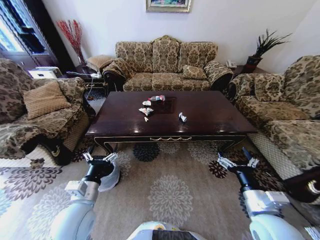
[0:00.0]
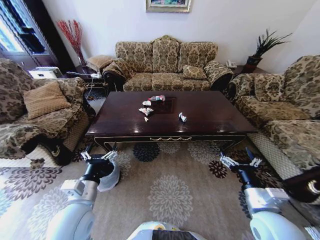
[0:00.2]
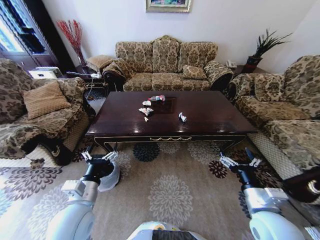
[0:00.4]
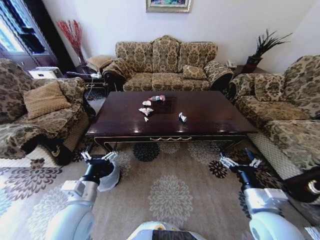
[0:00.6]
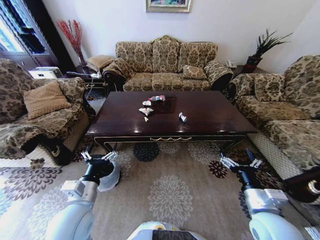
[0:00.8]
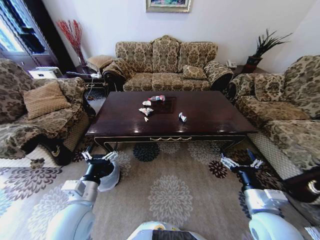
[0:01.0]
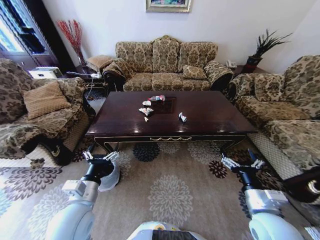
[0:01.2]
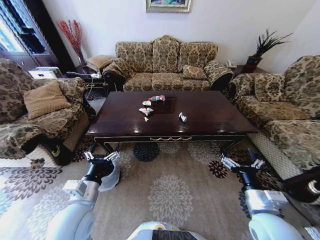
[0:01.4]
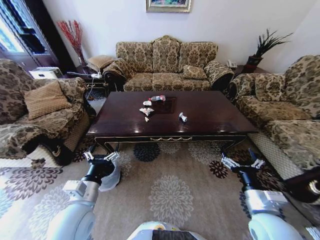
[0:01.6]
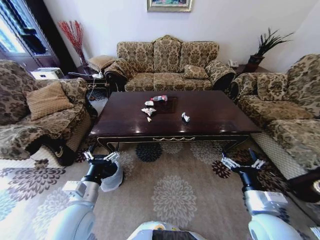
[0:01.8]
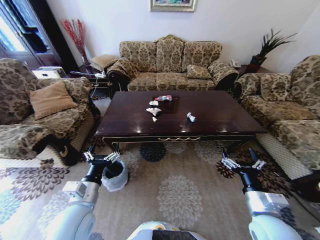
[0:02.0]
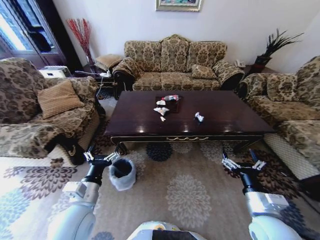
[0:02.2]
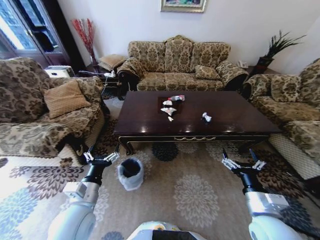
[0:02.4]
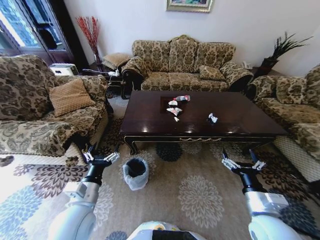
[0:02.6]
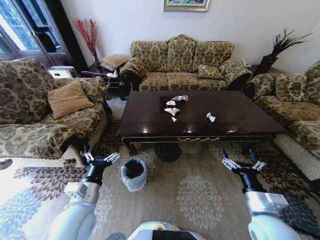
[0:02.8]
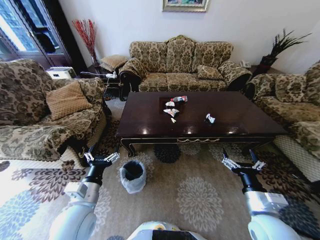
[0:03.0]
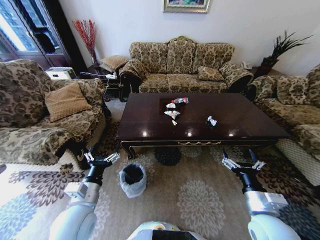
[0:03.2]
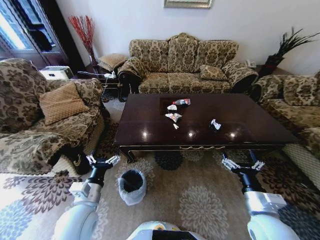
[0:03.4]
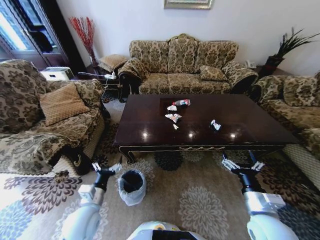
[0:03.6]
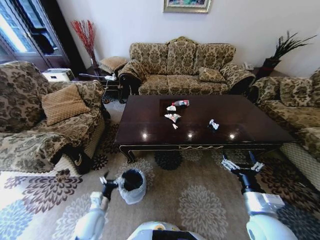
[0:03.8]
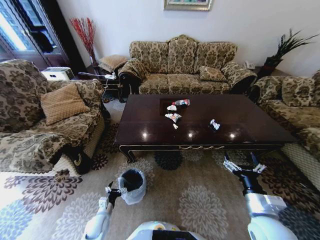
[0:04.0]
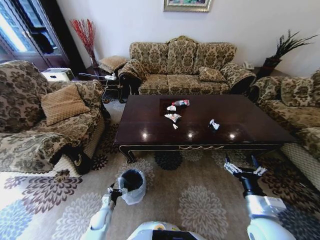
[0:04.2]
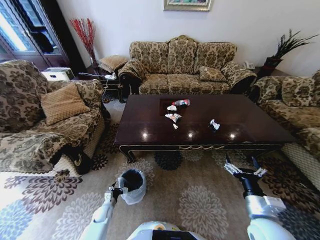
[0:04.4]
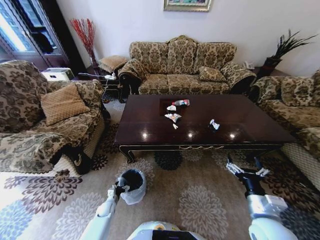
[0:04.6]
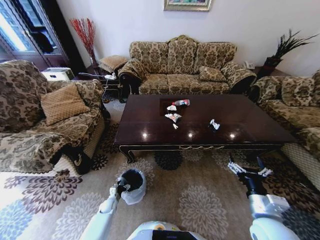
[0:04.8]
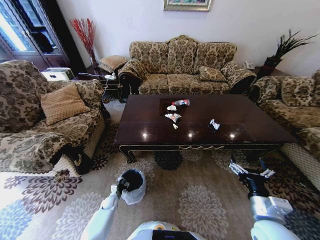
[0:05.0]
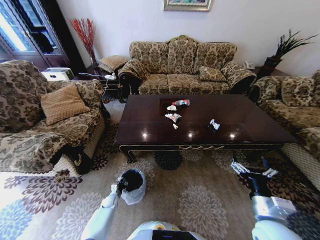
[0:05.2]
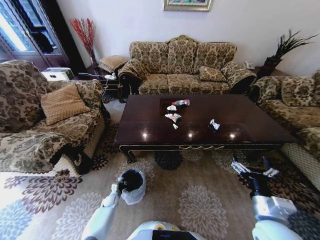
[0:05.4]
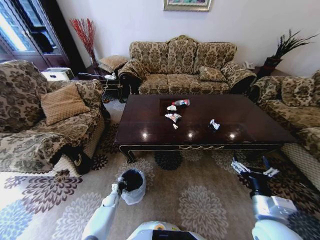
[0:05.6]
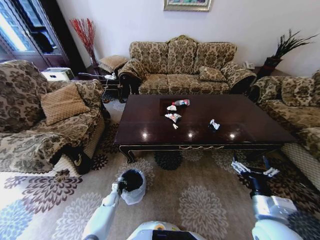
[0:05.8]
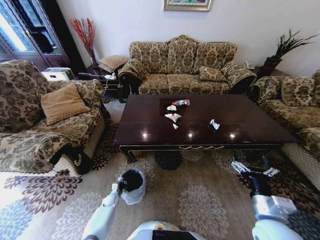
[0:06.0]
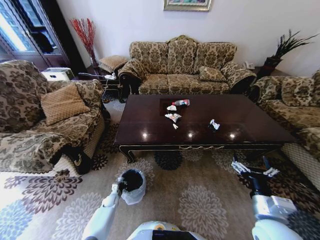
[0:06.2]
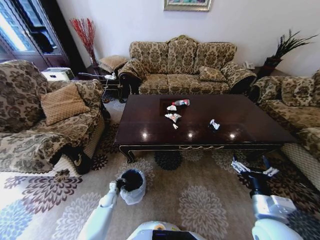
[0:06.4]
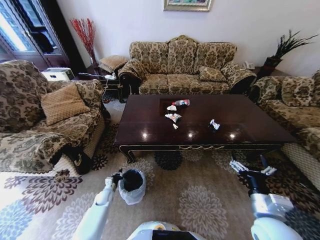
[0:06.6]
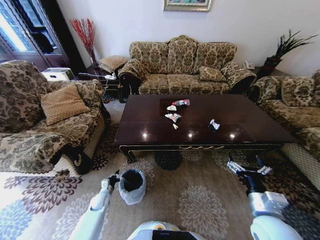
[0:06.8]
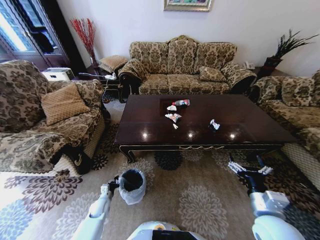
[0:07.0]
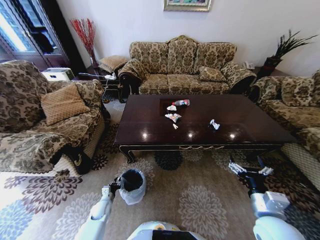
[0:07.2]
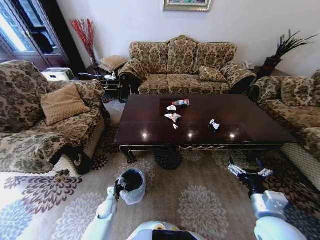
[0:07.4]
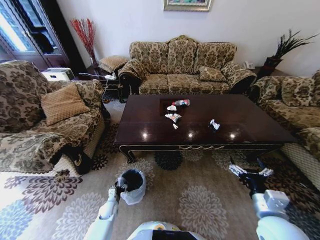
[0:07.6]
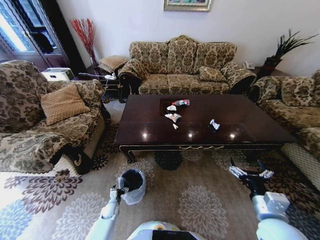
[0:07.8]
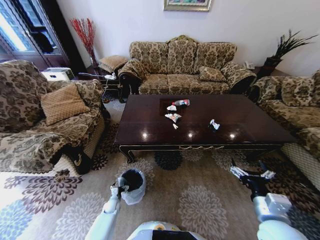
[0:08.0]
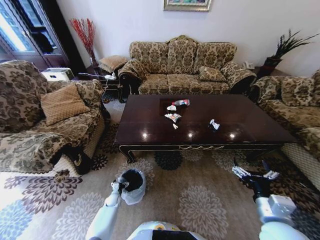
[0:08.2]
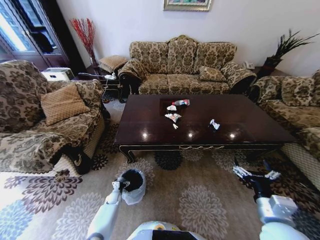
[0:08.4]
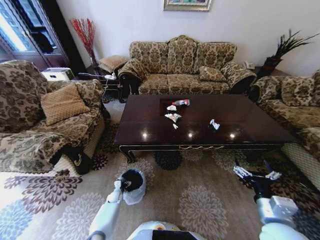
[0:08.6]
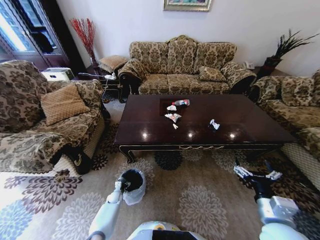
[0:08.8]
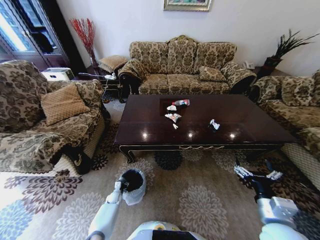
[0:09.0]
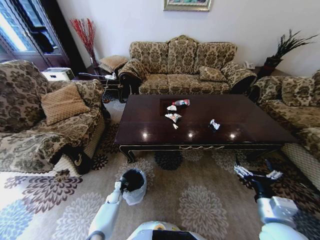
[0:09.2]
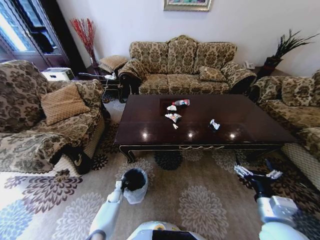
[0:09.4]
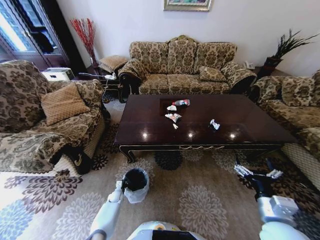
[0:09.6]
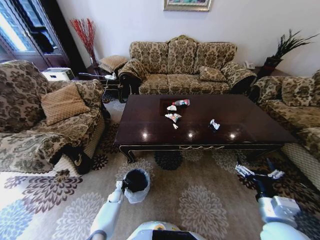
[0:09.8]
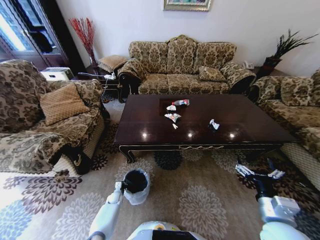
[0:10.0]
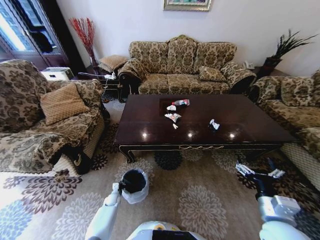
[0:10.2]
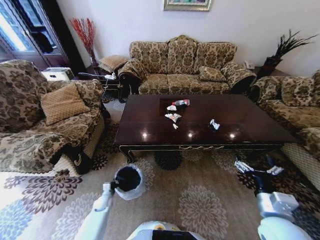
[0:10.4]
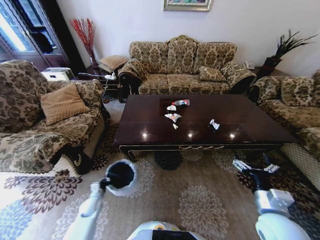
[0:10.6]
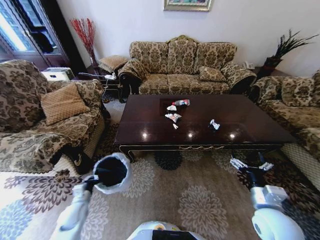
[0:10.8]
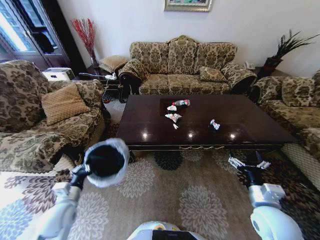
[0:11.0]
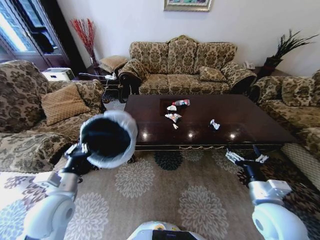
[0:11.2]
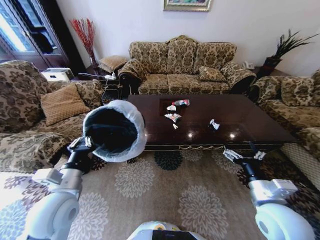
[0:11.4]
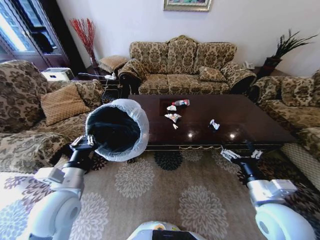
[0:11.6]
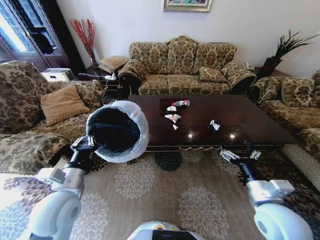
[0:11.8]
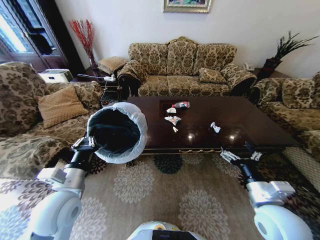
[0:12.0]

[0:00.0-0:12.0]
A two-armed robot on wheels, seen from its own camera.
Task of the whole recording: Move to the front of the table and place the trash on the table into the trash bin.
0:03.0 to 0:04.4: The left gripper heads downward, covering approximately 35 cm.
0:04.4 to 0:06.0: The left gripper travels forward by some 5 cm, and closes.
0:06.0 to 0:07.6: The left gripper is displaced upward and backward by about 10 cm, and opens its fingers.
0:07.6 to 0:09.0: The left gripper heads forward and downward, covering some 10 cm.
0:09.0 to 0:10.4: The left gripper shifts by about 5 cm, and closes.
0:10.4 to 0:12.0: The left gripper shifts about 40 cm upward.

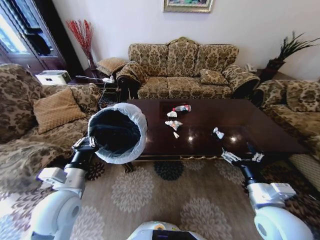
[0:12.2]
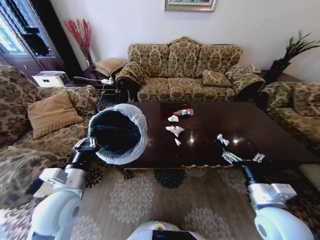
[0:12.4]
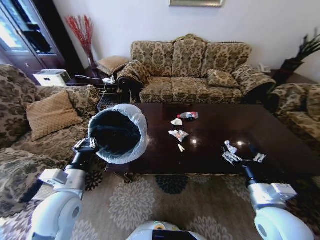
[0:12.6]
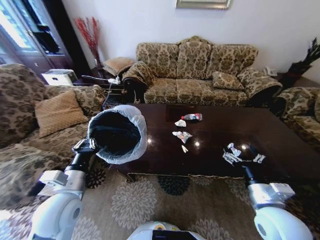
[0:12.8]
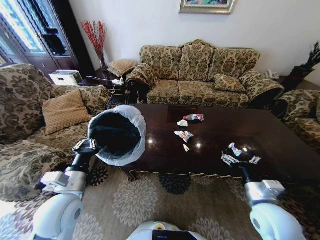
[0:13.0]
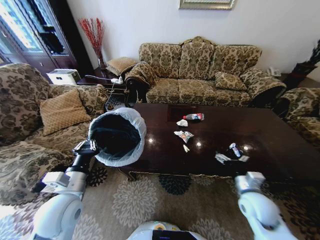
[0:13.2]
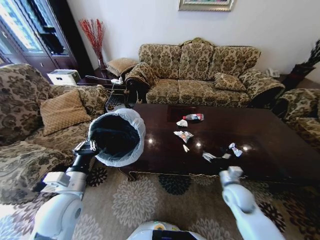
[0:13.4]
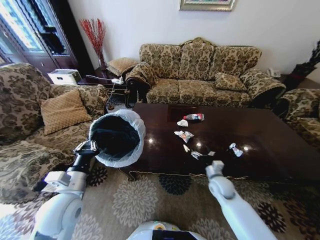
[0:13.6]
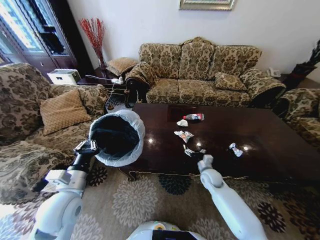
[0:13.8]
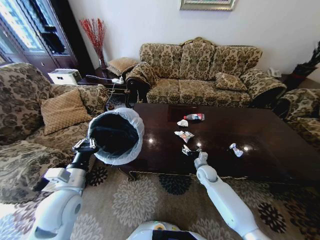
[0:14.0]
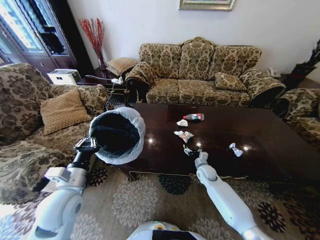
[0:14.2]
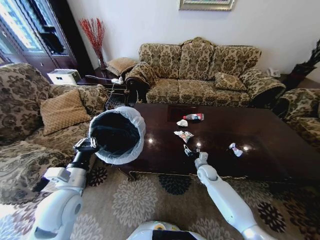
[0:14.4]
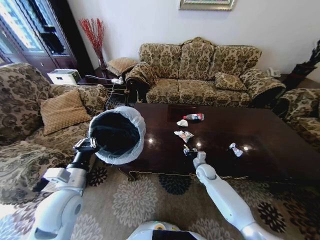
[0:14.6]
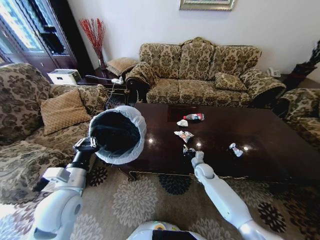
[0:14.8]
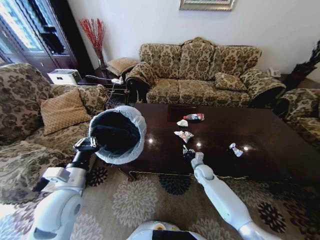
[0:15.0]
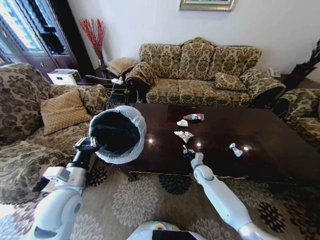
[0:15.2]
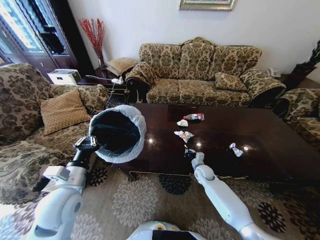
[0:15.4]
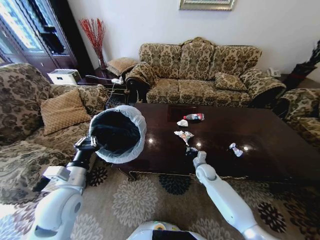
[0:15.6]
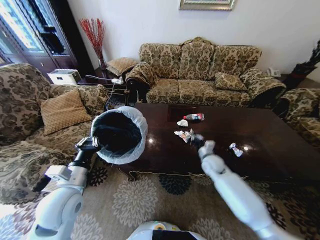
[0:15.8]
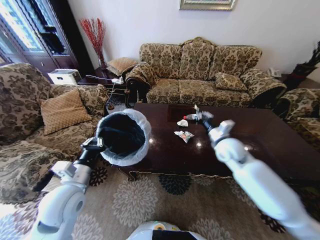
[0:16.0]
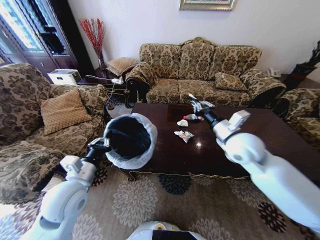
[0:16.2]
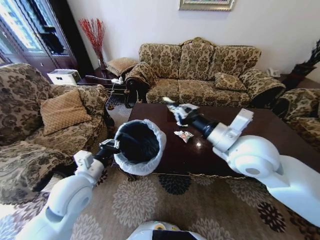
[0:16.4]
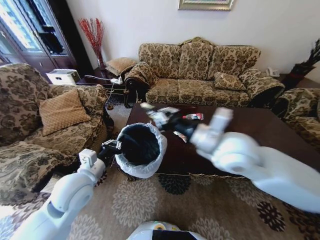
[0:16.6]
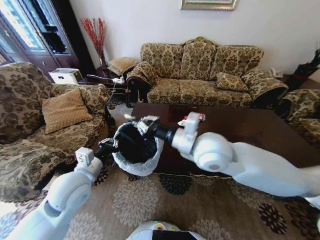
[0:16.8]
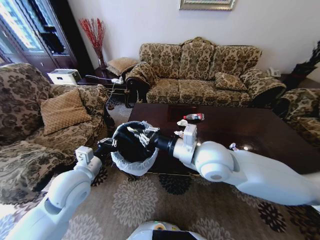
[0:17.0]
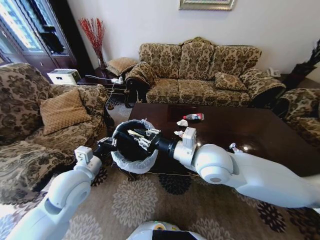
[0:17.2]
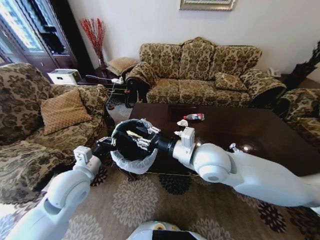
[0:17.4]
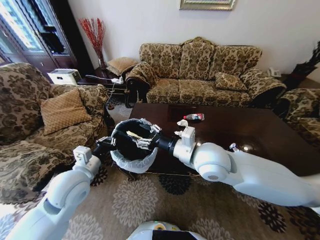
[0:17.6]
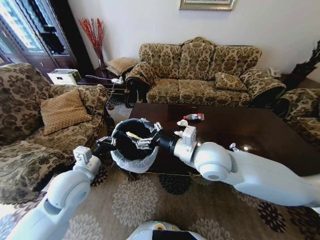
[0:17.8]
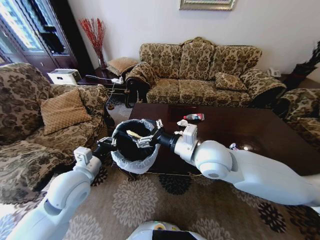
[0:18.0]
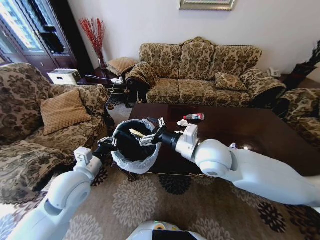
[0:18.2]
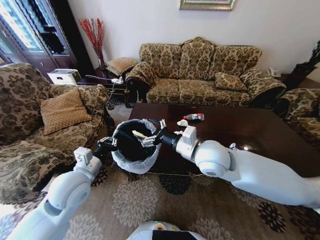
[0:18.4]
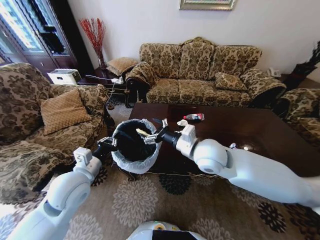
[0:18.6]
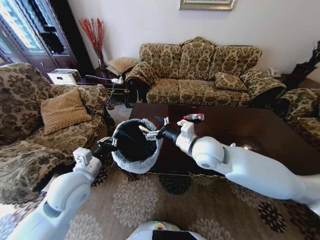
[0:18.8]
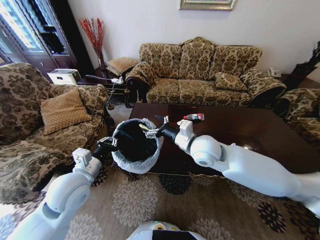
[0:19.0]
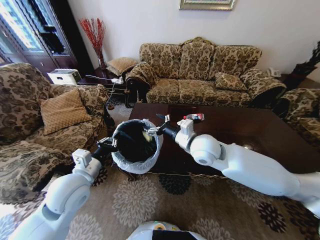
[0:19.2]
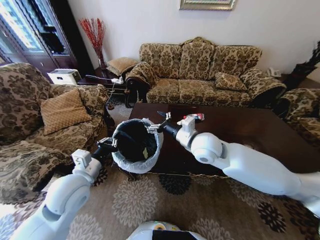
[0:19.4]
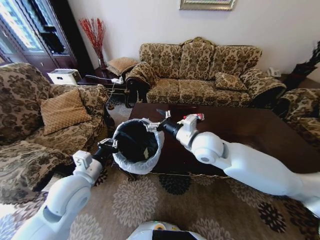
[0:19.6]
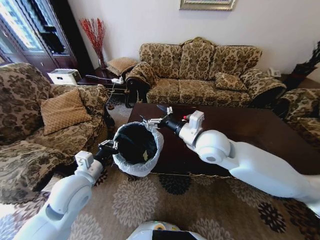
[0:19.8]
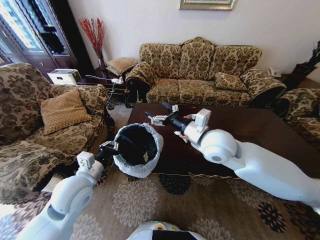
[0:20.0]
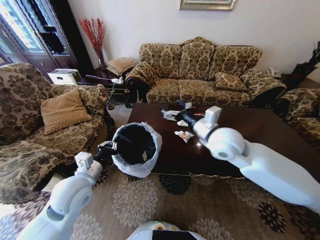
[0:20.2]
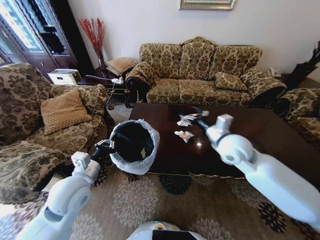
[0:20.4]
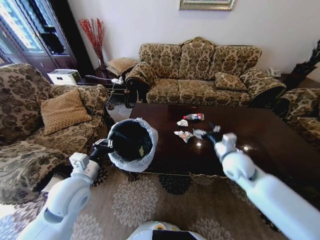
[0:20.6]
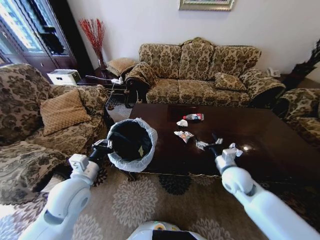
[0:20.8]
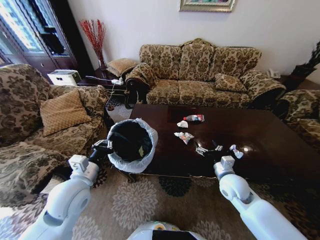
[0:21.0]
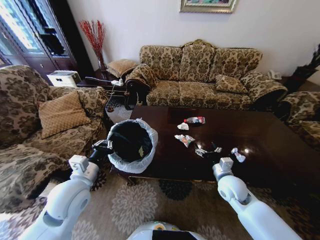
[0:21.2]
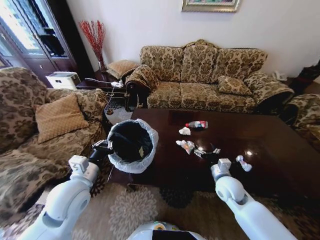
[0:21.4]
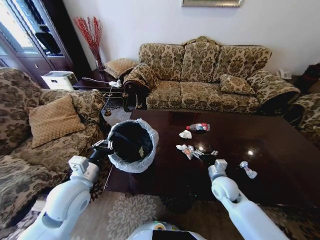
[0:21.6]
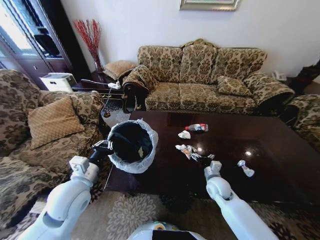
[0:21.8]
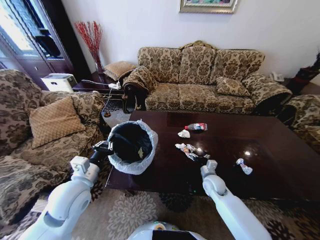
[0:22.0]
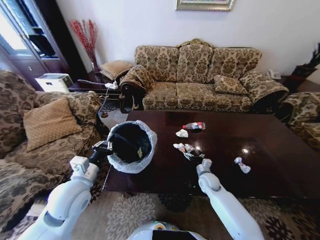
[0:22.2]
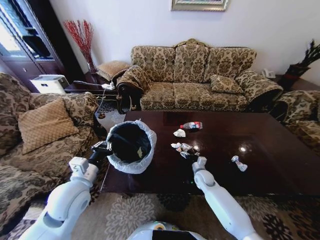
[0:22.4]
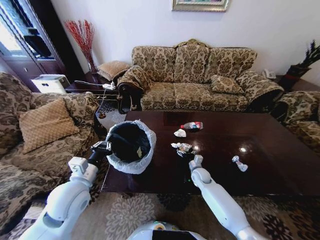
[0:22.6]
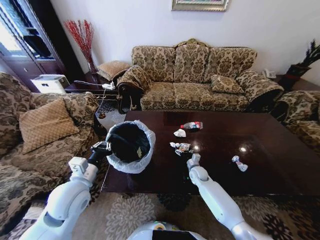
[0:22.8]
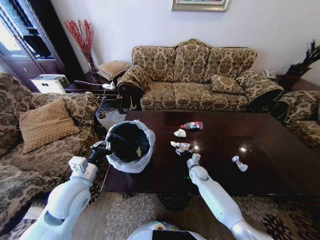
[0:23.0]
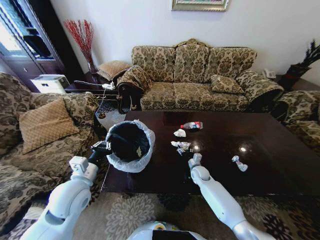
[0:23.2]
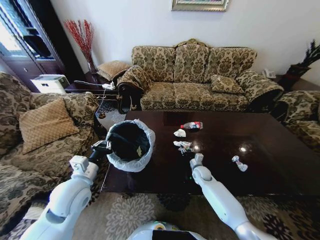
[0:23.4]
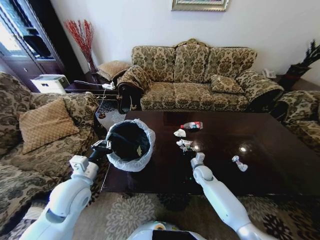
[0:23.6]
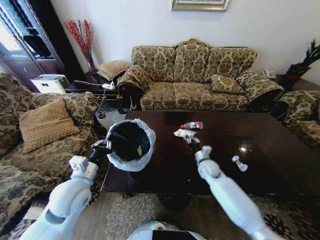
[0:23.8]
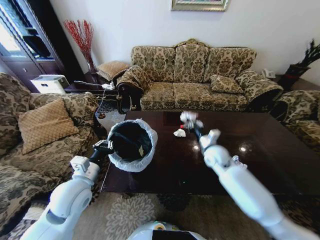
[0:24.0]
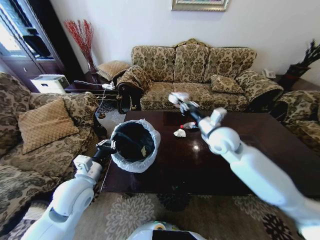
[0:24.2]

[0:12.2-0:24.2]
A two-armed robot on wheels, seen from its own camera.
Task of the whole recording: Move to the front of the table and place the trash on the table into the trash bin.
0:12.2 to 0:13.8: The right gripper goes about 30 cm forward and downward.
0:13.8 to 0:15.2: The right gripper shifts by roughly 5 cm, and closes.
0:15.2 to 0:16.6: The left gripper shifts by some 5 cm, while the right gripper is displaced upward by some 40 cm.
0:16.6 to 0:18.2: The right gripper changes place by approximately 5 cm, and opens up.
0:18.2 to 0:19.8: The grippers make only small movements.
0:19.8 to 0:21.2: The right gripper is displaced downward and to the right by approximately 25 cm.
0:21.2 to 0:22.6: The right gripper goes roughly 20 cm downward and forward.
0:22.6 to 0:24.2: The right gripper heads upward, covering some 35 cm, and closes its fingers.
